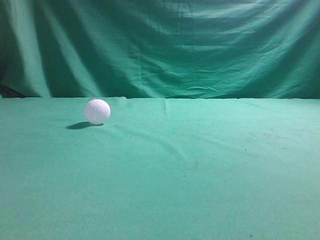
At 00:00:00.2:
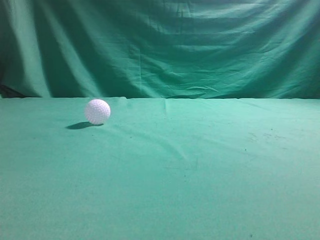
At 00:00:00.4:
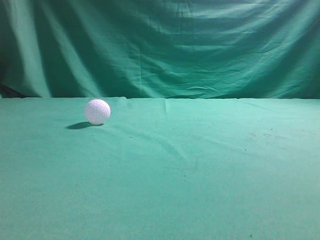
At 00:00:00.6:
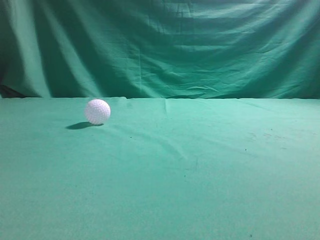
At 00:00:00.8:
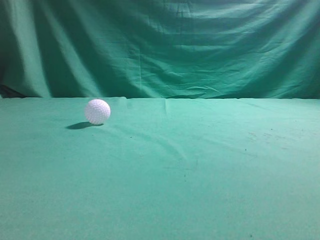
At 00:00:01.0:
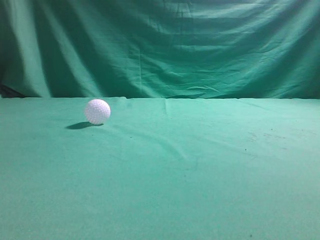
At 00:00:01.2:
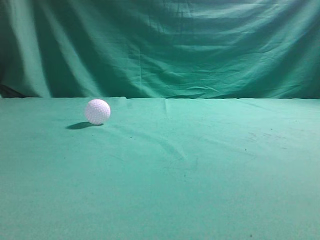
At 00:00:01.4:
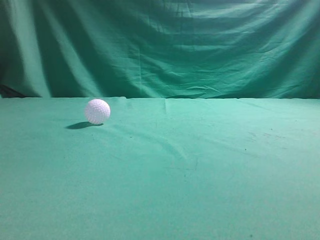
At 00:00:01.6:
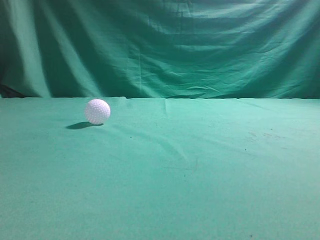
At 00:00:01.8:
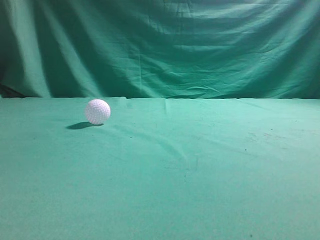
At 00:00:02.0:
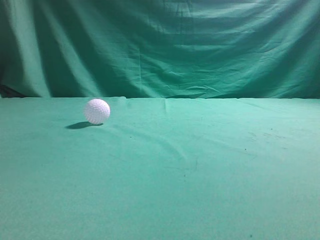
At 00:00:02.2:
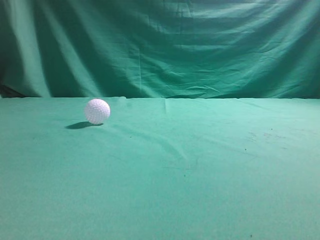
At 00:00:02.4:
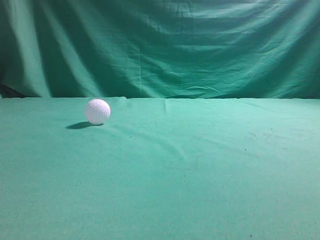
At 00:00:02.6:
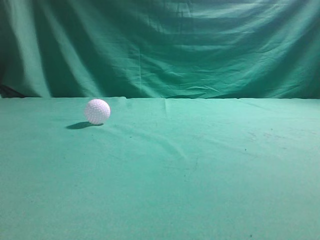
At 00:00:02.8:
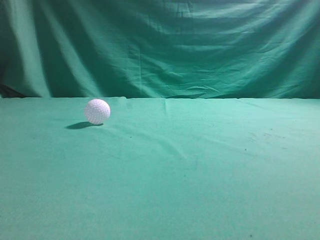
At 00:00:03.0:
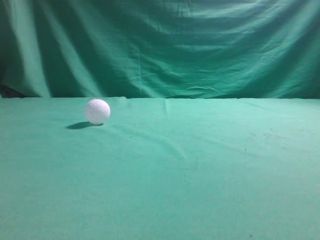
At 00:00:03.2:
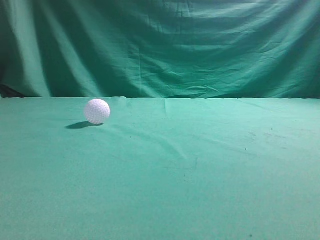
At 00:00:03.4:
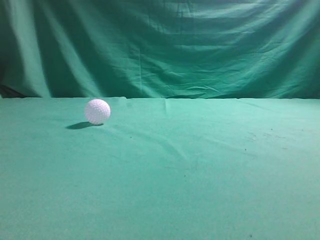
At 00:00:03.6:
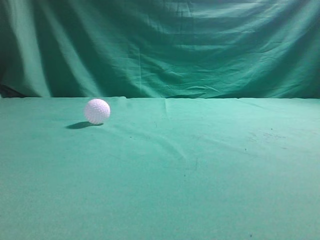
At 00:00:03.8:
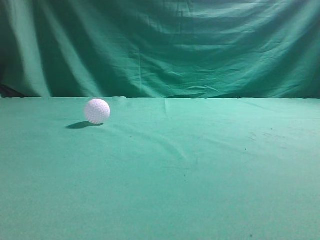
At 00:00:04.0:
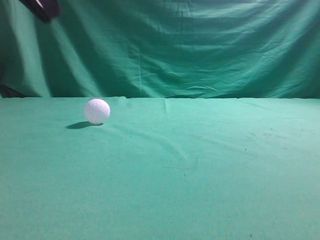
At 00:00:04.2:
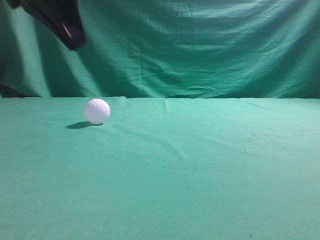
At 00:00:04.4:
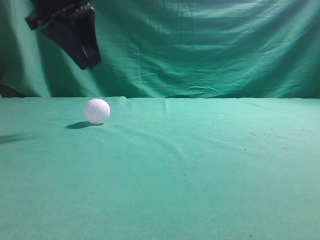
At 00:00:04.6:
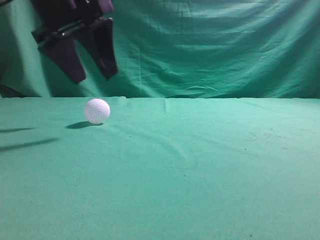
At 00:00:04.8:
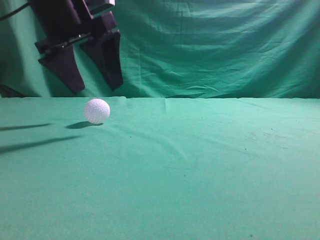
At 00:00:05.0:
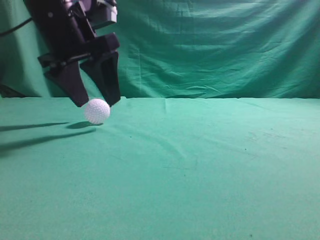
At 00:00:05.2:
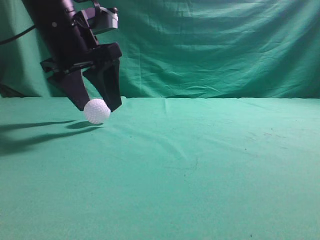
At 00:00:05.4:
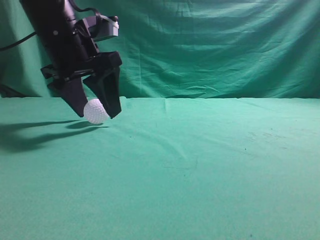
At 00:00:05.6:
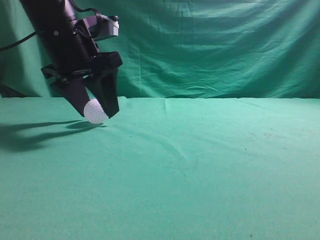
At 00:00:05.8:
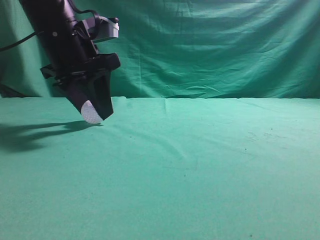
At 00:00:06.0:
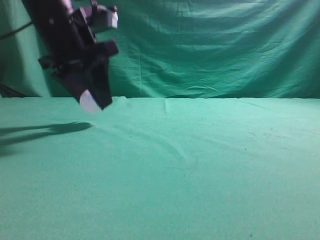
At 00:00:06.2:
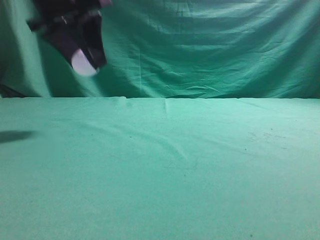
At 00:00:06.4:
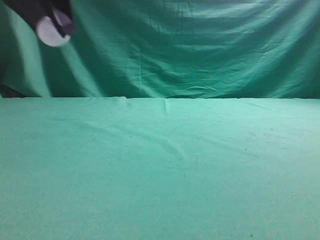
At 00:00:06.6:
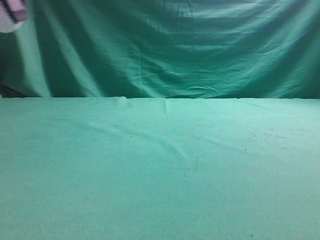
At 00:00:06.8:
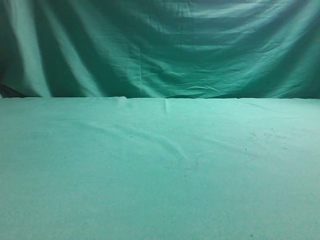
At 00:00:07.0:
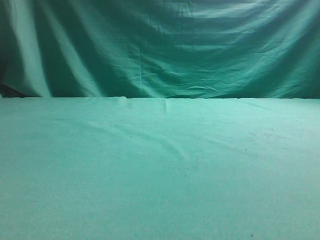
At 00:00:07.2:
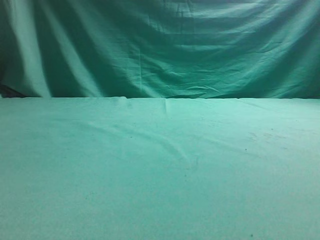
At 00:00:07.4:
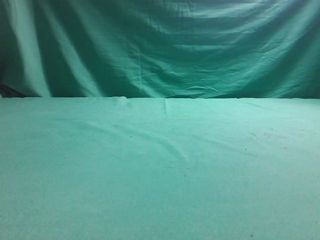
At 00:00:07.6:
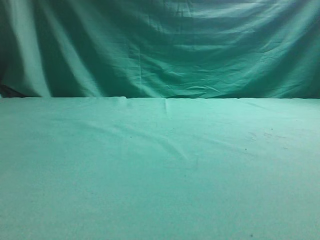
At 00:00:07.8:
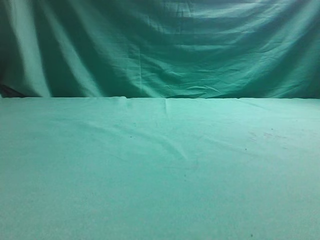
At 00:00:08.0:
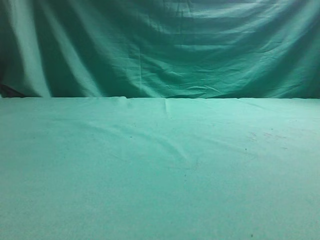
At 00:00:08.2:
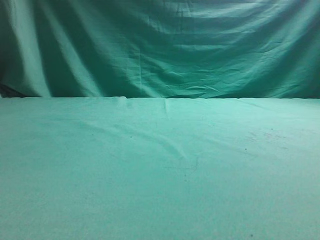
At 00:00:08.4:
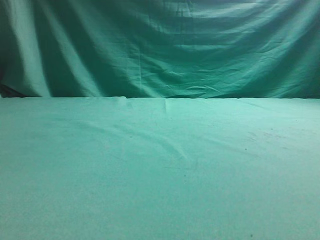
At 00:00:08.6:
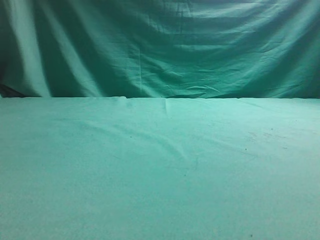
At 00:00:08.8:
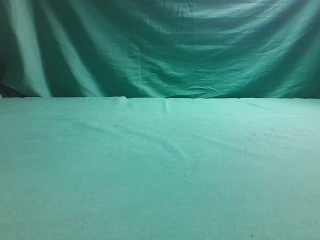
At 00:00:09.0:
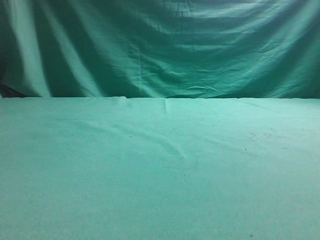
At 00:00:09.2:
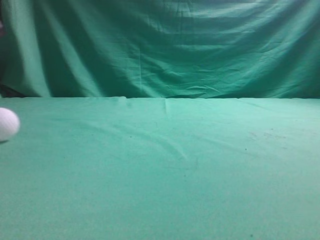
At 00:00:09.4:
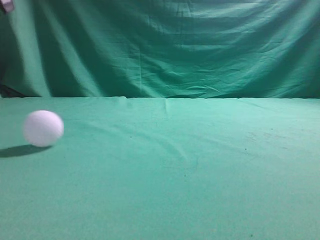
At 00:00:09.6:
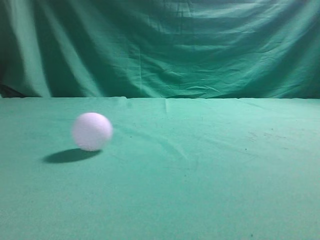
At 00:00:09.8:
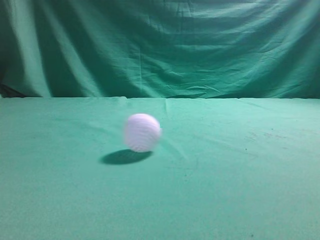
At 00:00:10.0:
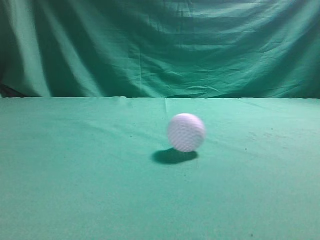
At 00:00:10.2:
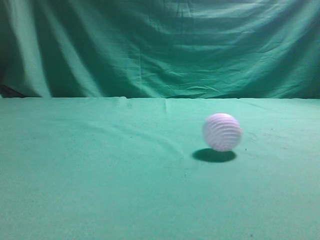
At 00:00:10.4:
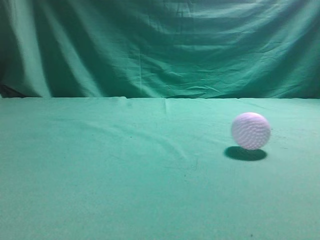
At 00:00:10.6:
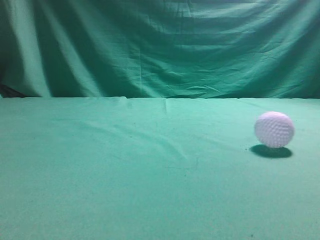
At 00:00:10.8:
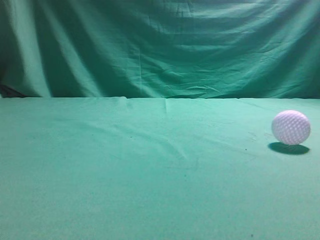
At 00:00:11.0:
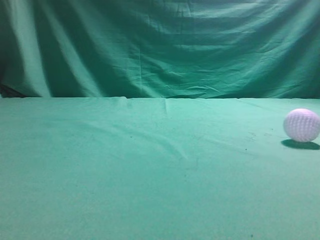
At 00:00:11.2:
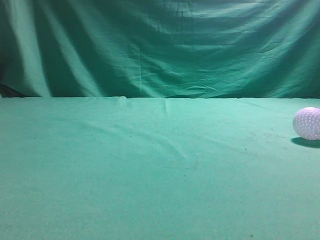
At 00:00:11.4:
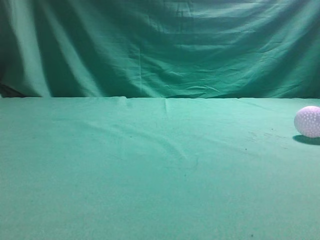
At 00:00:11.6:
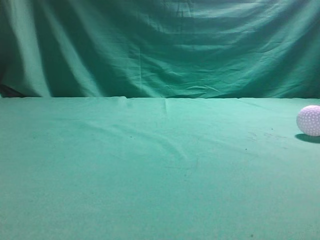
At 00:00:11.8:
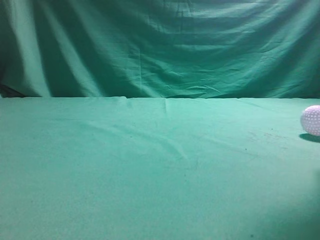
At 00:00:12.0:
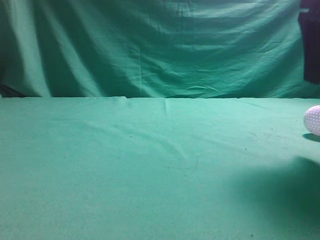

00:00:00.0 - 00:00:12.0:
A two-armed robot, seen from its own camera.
Task of the whole recording: pick up the ball and place it on the plate, then pick up the ball from the plate and put it in the center of the table.
Step, 00:00:00.0 - 00:00:06.0: Grab the spherical object with your left arm.
Step, 00:00:06.2 - 00:00:08.6: Place the sphere on the white object.
00:00:03.0 - 00:00:04.4: The left gripper shifts approximately 30 cm forward and to the right, and opens its fingers.
00:00:06.0 - 00:00:07.6: The left gripper shifts some 20 cm to the left.
00:00:09.0 - 00:00:10.4: The right gripper shifts approximately 15 cm upward and forward.
00:00:10.4 - 00:00:12.0: The right gripper is displaced forward and downward by roughly 20 cm, and opens.

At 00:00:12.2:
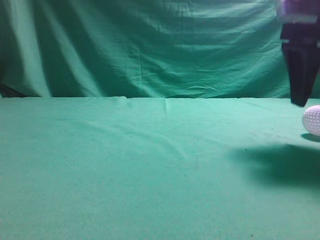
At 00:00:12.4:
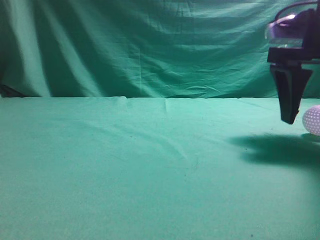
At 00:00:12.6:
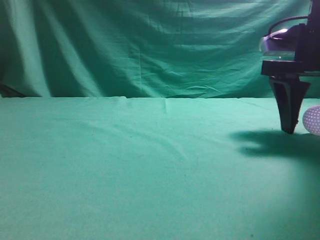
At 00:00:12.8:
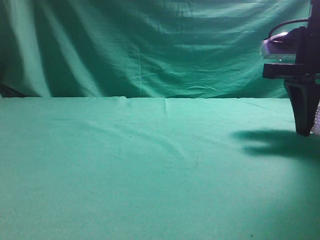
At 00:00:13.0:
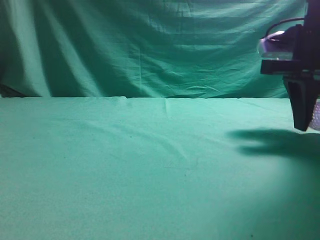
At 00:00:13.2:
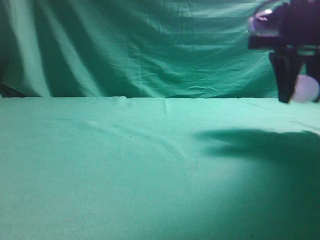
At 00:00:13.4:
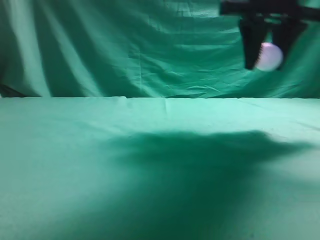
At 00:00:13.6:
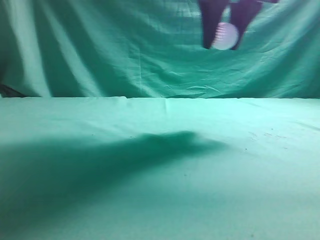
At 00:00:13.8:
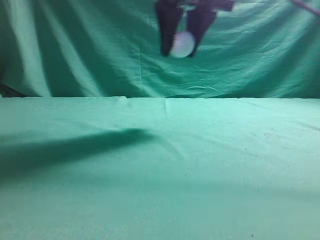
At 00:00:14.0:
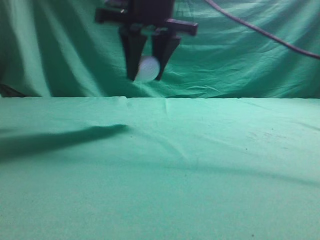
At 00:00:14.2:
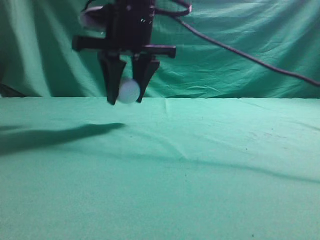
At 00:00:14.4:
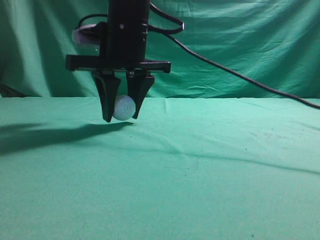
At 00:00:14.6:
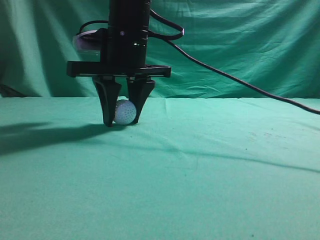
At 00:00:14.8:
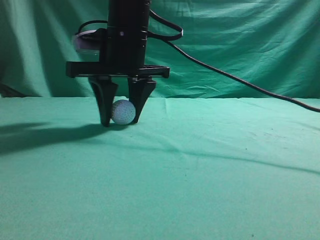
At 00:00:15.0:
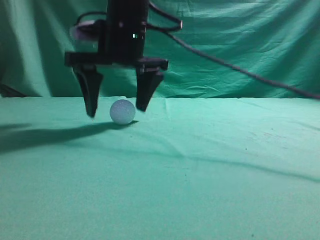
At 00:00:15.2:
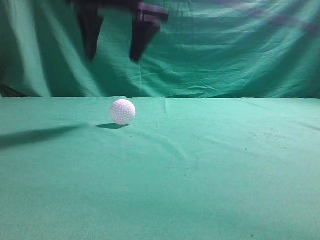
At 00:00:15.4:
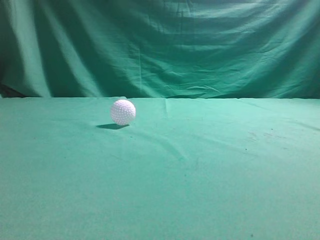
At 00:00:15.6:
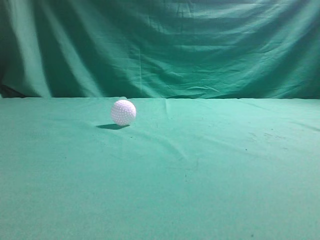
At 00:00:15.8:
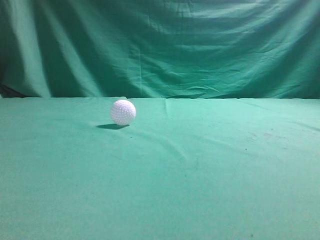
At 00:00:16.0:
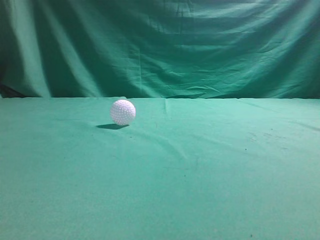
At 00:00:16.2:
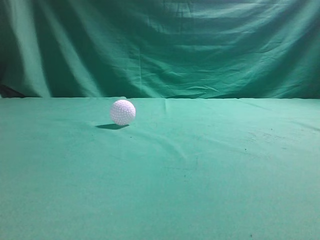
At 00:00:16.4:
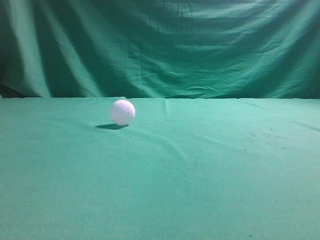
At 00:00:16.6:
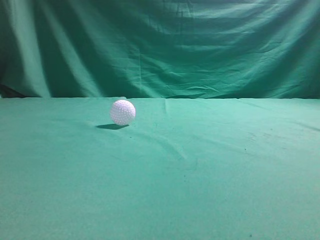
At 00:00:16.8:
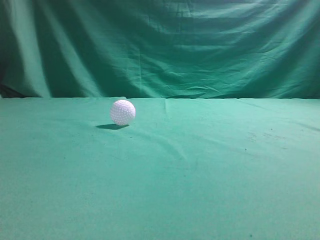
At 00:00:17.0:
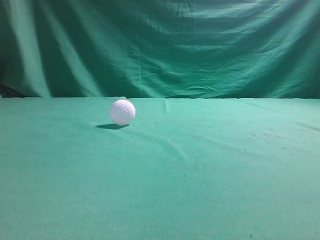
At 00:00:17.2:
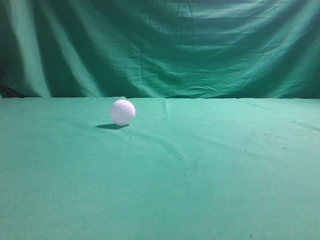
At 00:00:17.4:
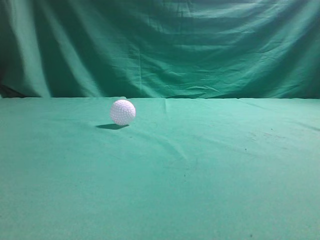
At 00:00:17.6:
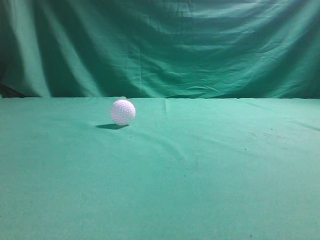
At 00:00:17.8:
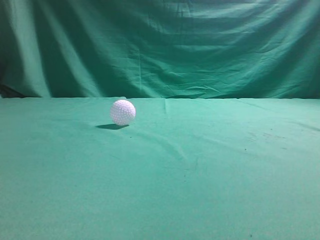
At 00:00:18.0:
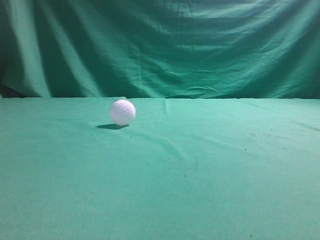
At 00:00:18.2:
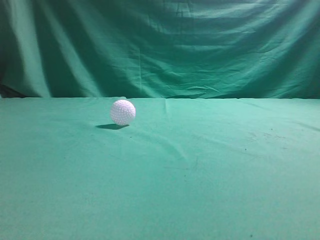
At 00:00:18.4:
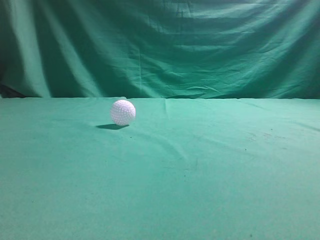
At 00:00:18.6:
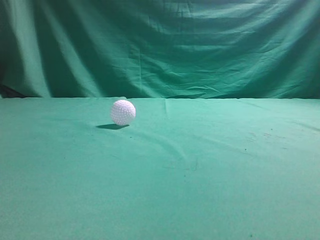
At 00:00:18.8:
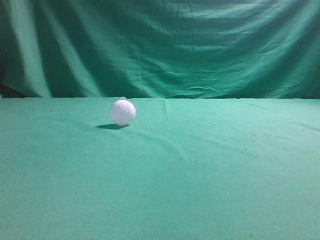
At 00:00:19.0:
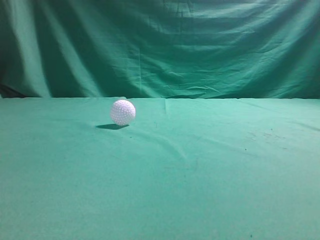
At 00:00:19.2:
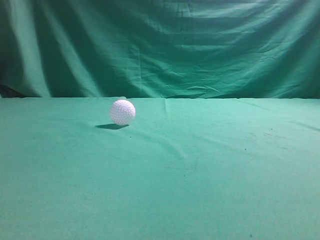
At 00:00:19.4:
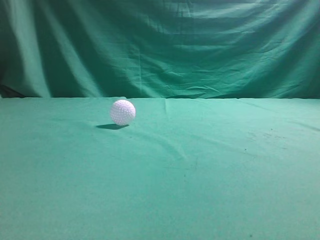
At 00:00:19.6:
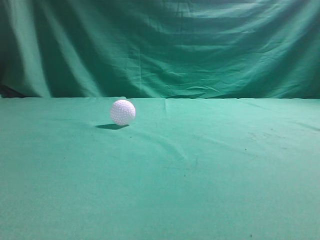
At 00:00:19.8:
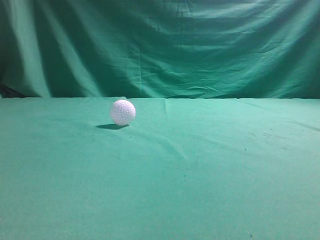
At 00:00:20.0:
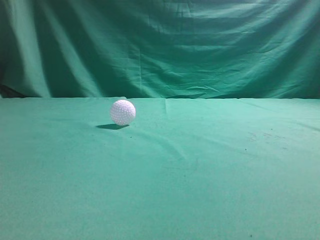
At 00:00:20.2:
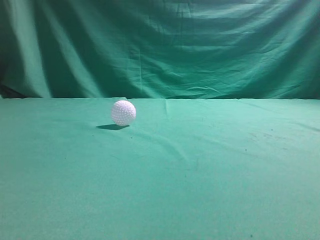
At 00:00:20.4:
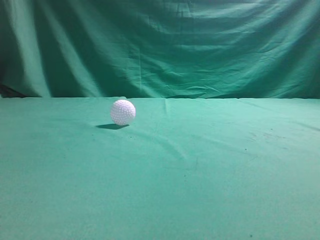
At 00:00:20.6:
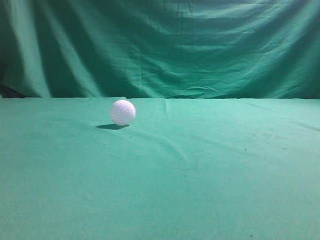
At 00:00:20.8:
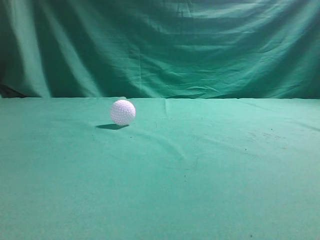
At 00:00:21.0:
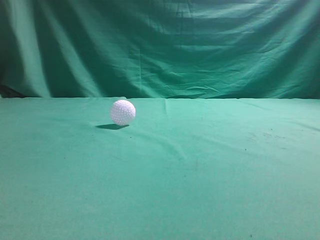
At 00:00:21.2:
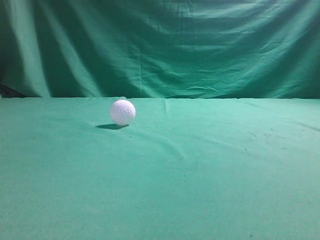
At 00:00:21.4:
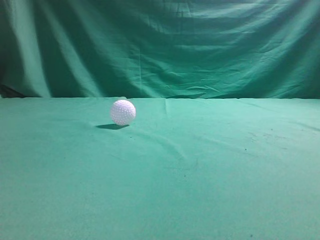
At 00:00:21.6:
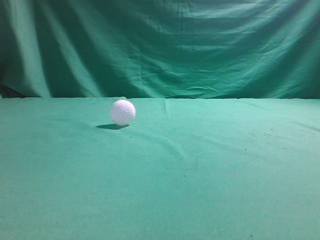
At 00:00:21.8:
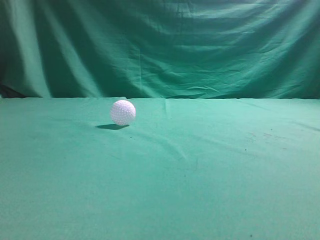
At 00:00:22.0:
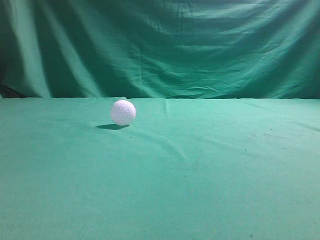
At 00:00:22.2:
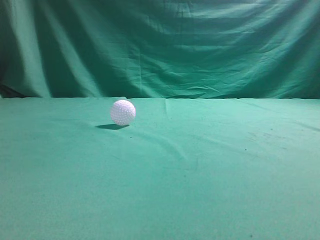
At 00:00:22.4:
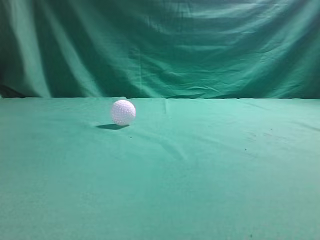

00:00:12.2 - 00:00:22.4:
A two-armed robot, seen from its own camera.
Task of the whole recording: pick up the ball and place it on the plate, then pick up the ball from the plate and put it in the center of the table.
Step, 00:00:13.4 - 00:00:15.0: Put the picked-up object on the table.
00:00:12.2 - 00:00:13.6: The right gripper goes about 20 cm to the left and upward, and closes.
00:00:13.6 - 00:00:15.2: The right gripper is displaced upward and to the left by about 10 cm, and opens, then closes again.
00:00:15.2 - 00:00:16.6: The left gripper moves backward and downward, some 10 cm, while the right gripper moves backward and to the right, some 40 cm.
